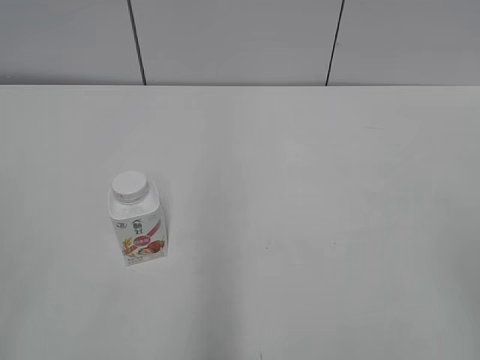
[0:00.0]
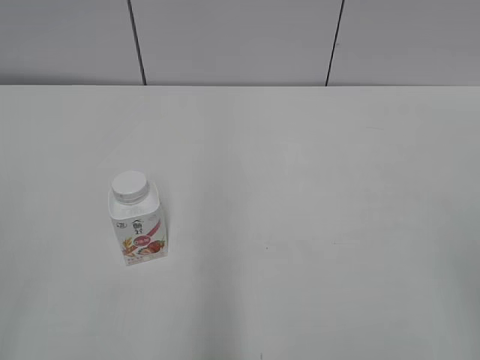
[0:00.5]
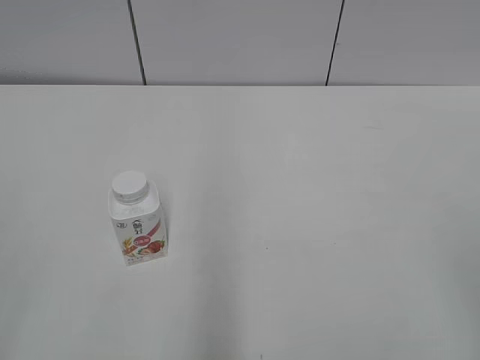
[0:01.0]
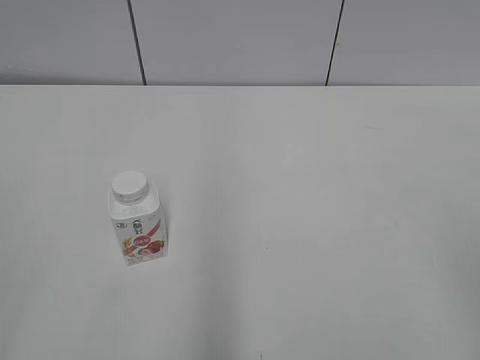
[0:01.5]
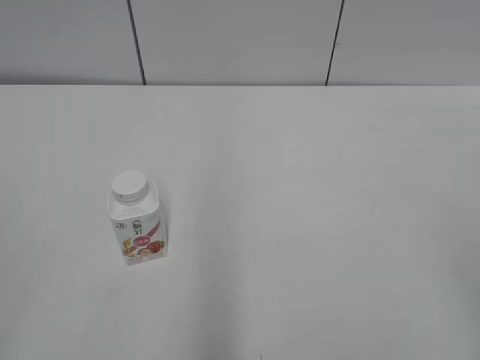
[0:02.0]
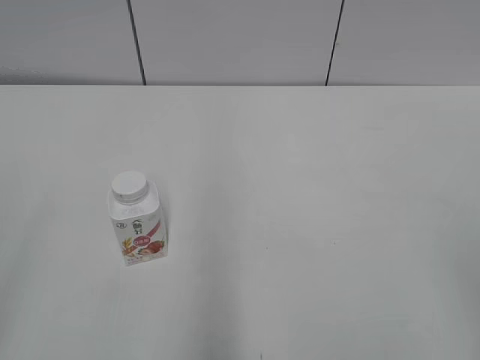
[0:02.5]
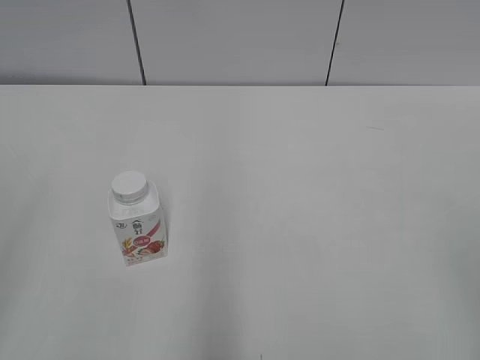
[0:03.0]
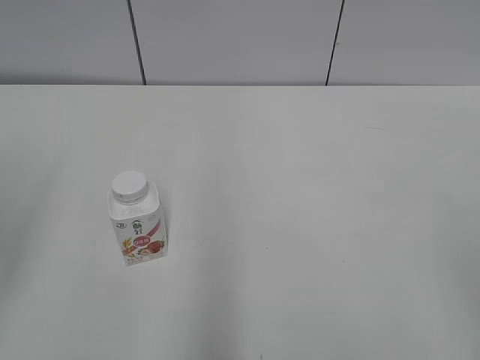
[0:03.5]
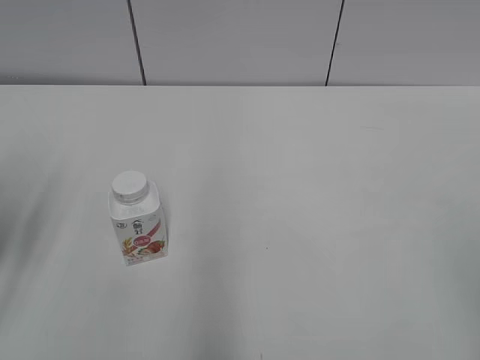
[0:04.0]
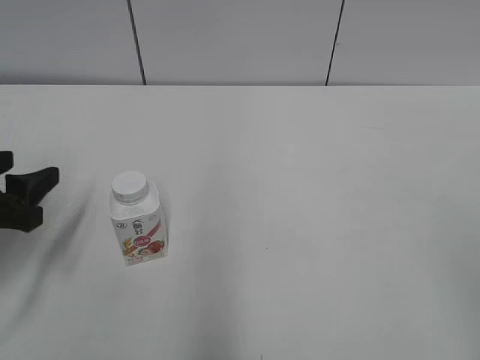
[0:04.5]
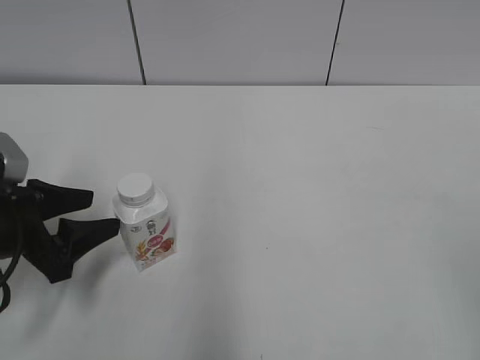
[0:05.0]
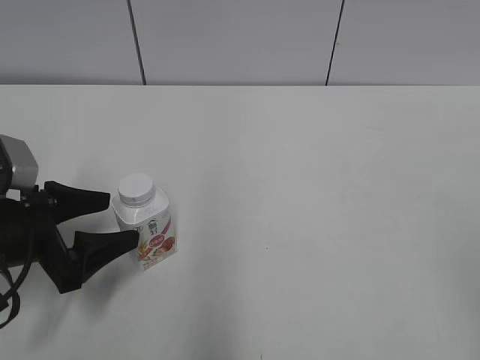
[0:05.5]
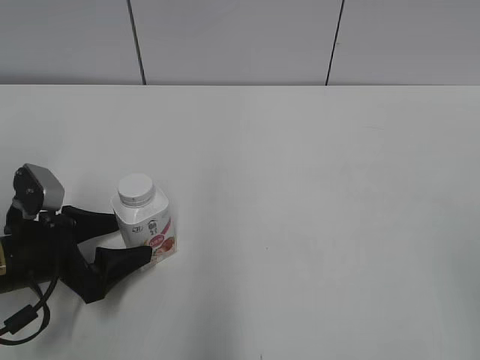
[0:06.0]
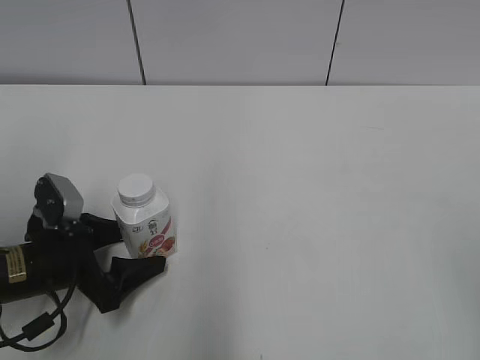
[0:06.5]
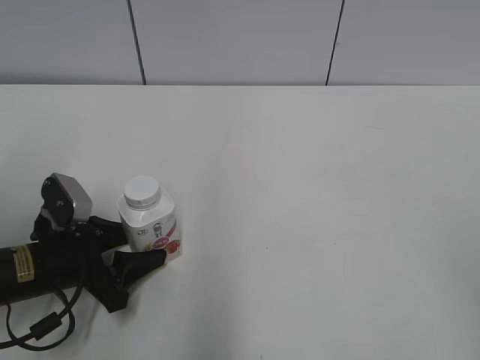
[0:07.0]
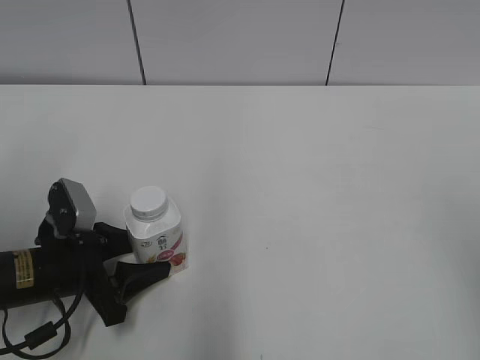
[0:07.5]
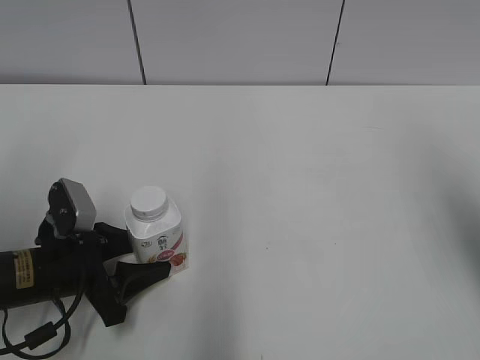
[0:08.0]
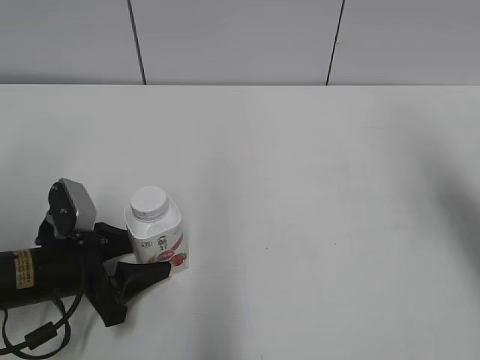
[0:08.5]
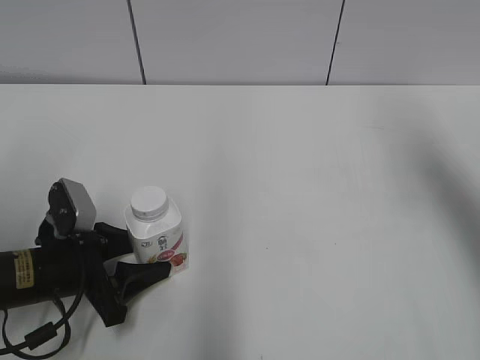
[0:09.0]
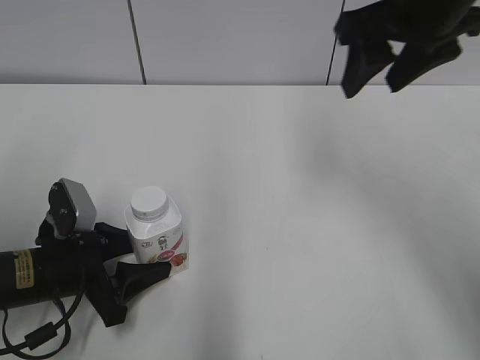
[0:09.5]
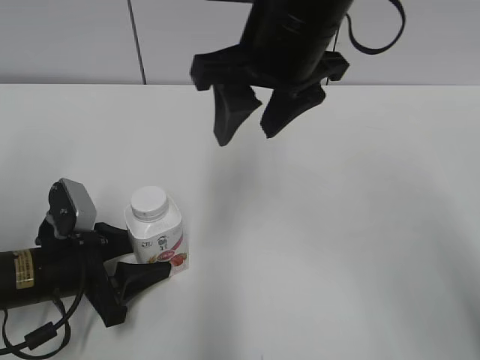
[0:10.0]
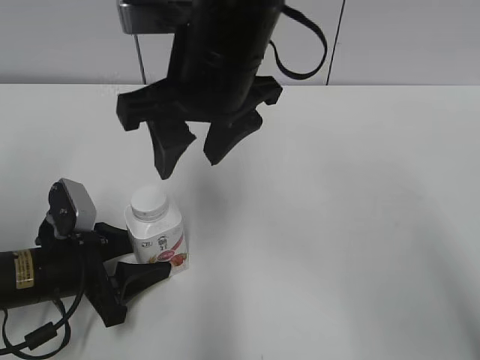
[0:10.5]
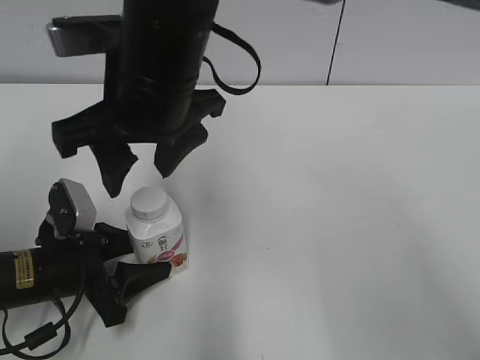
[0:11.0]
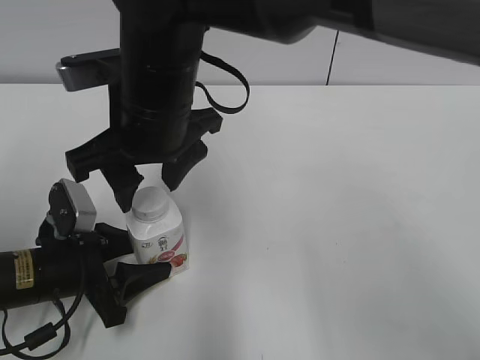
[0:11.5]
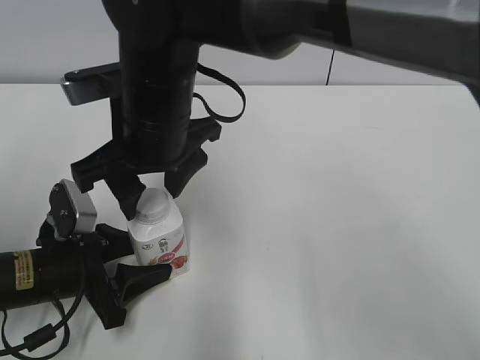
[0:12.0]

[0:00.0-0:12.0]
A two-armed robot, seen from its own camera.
Step, 0:00.0 to 0:07.0: Grab the Yili Changqing with the left hand.
0:02.0 to 0:04.0: The left gripper is displaced forward by approximately 20 cm, and opens up.
0:04.0 to 0:06.0: The left gripper shifts about 15 cm downward and to the right.
0:06.0 to 0:08.0: The left gripper closes its fingers. Meanwhile the right gripper goes some 20 cm forward.
0:08.0 to 0:10.0: The right gripper travels to the left and forward by approximately 30 cm, and closes its fingers.
0:10.0 to 0:12.0: The right gripper goes roughly 15 cm to the left and downward.

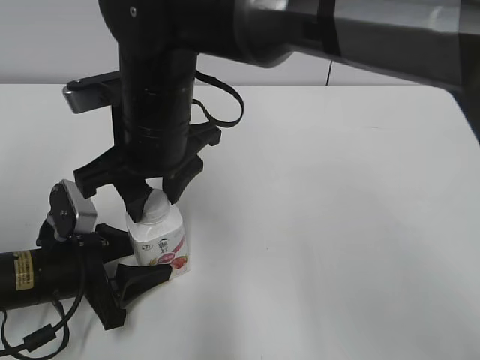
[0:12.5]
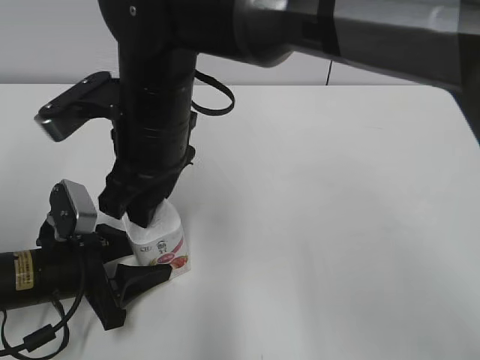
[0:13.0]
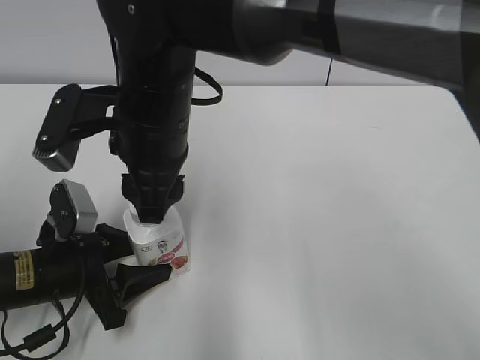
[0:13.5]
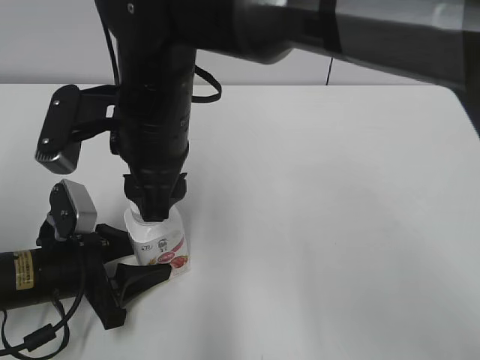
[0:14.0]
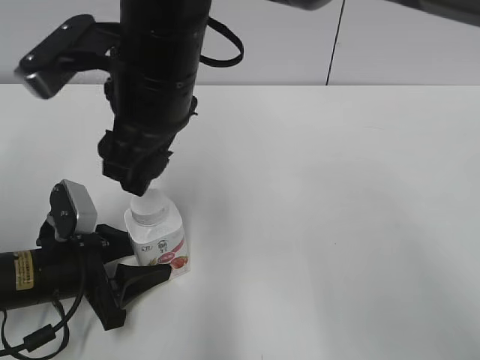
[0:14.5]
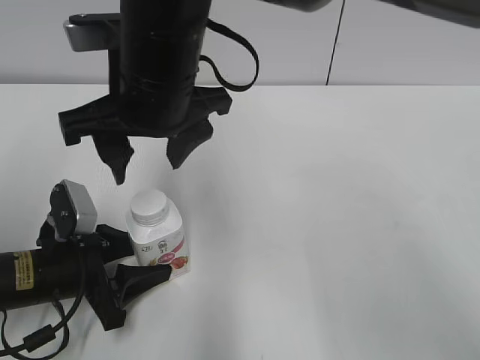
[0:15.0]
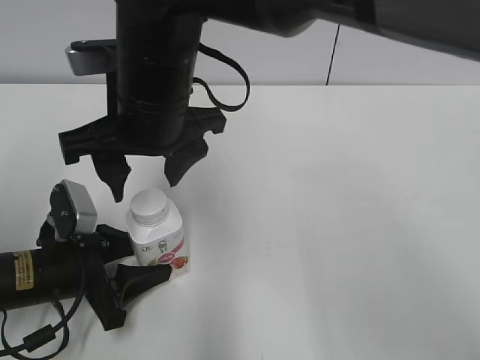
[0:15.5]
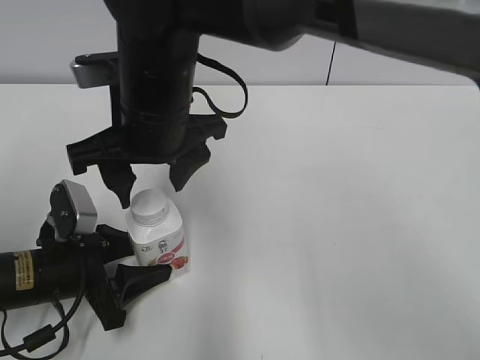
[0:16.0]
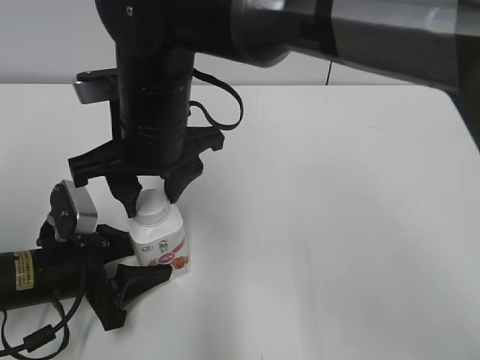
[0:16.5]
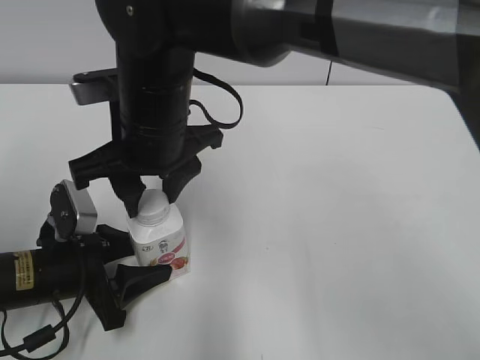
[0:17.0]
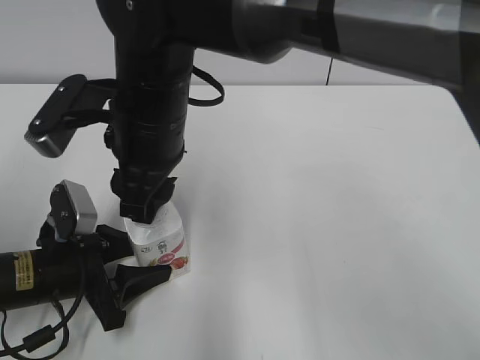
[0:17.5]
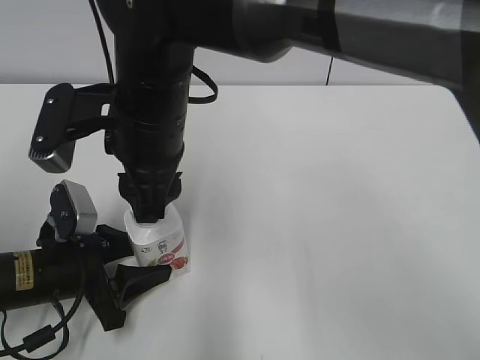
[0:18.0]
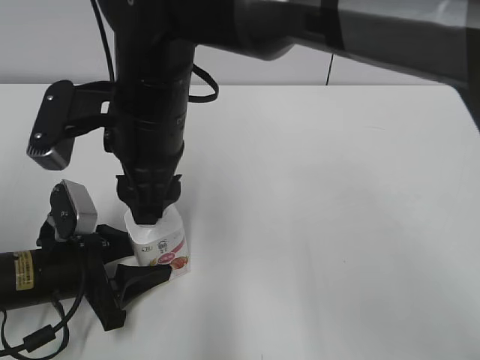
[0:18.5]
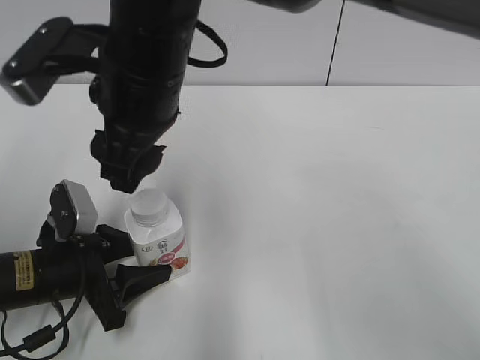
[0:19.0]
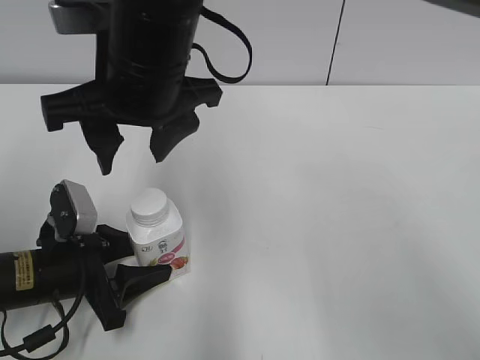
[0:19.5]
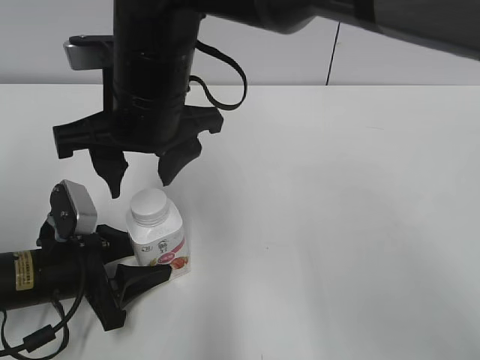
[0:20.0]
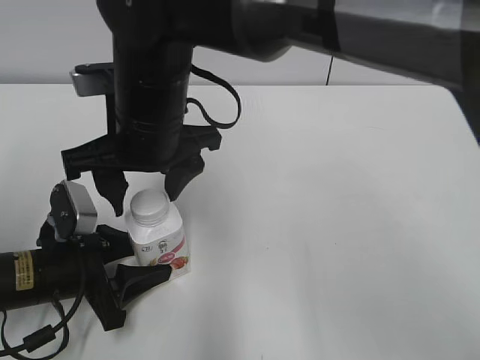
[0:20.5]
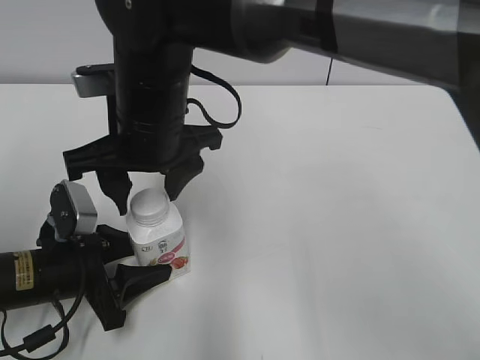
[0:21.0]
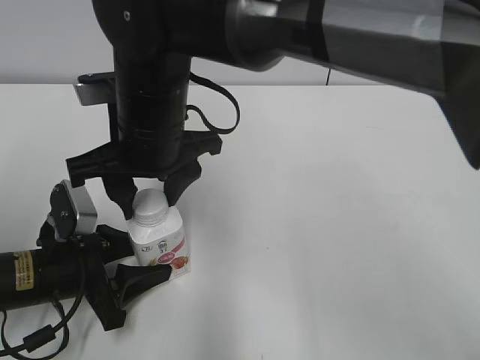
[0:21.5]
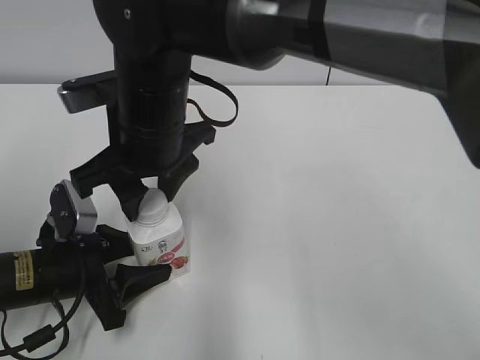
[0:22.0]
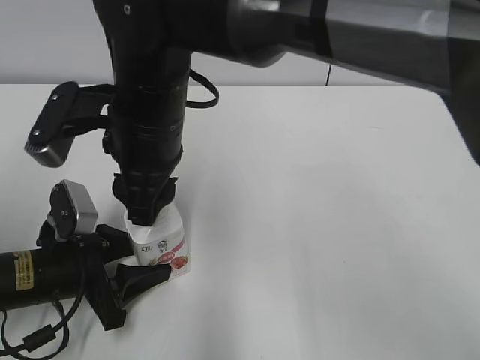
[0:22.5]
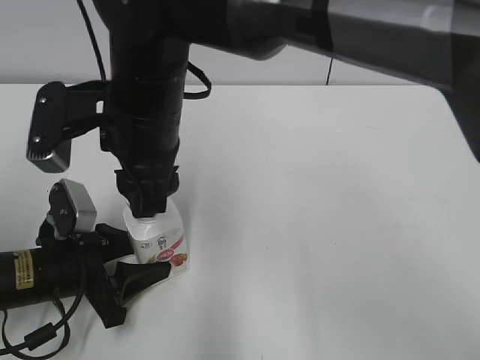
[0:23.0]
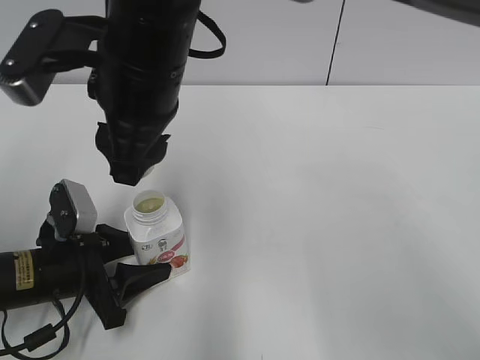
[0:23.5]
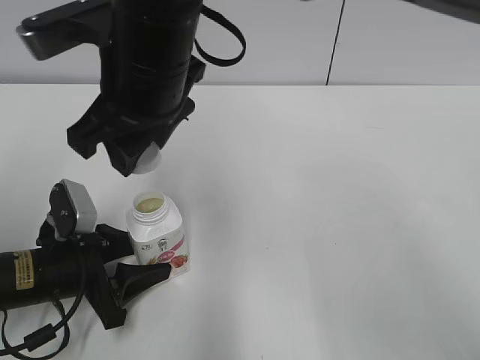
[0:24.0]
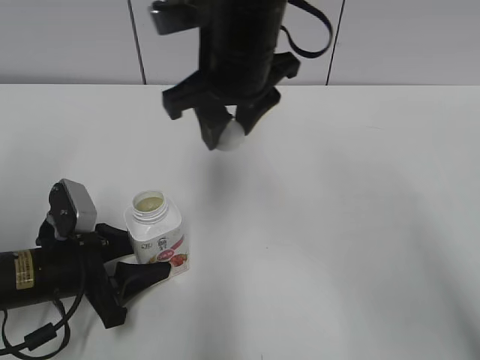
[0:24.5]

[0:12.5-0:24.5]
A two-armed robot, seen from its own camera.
0:12.5 to 0:14.5: The right gripper opens.
0:14.5 to 0:16.5: The right gripper closes its fingers.
0:20.5 to 0:22.5: The right gripper closes.
0:22.5 to 0:24.5: The right gripper goes some 10 cm to the right and upward.

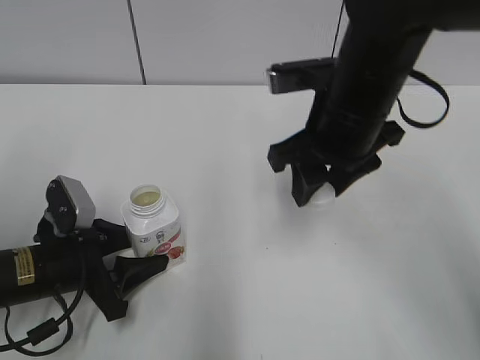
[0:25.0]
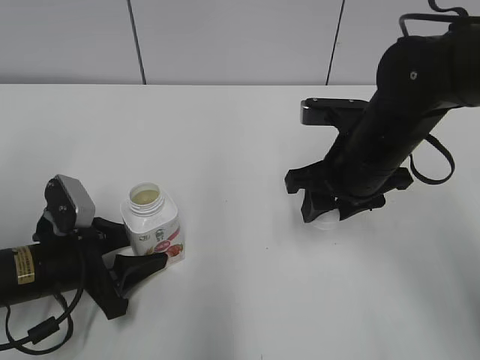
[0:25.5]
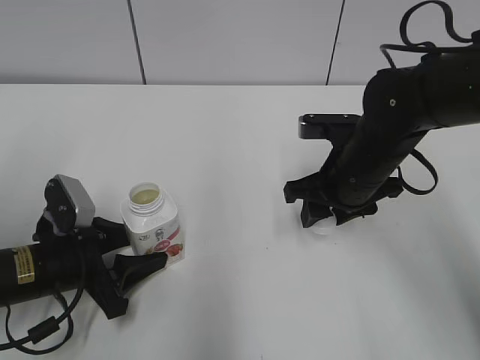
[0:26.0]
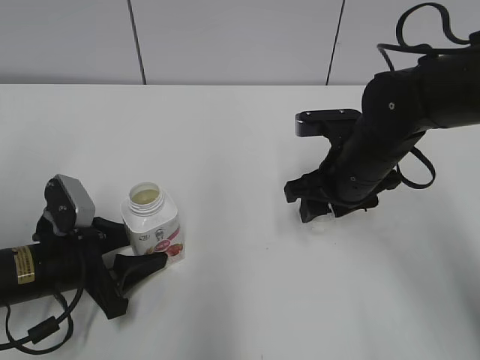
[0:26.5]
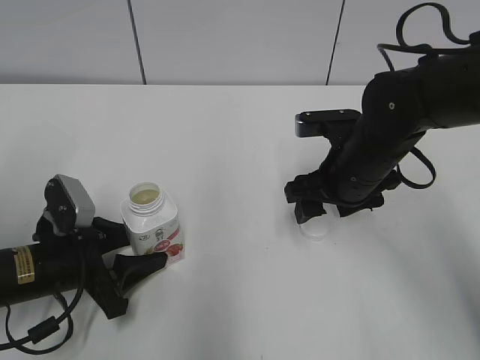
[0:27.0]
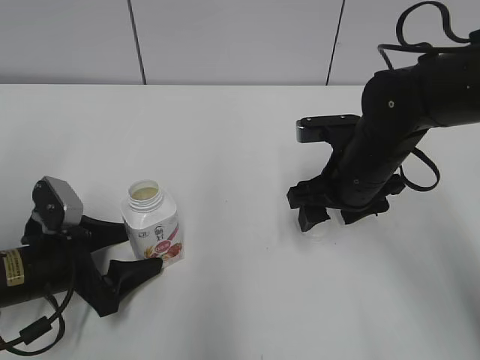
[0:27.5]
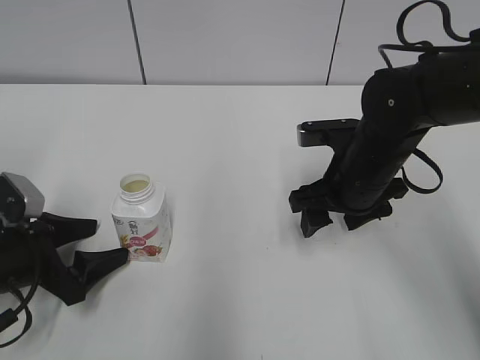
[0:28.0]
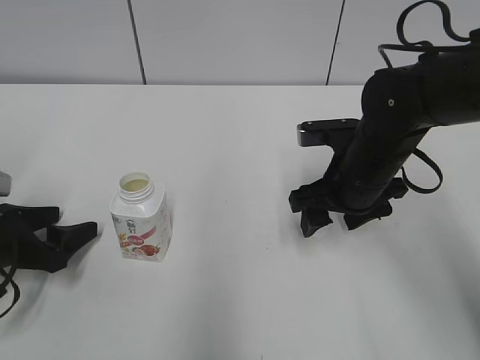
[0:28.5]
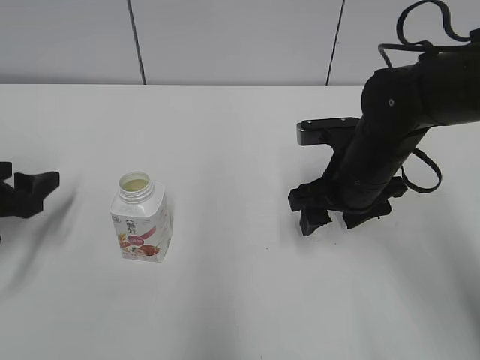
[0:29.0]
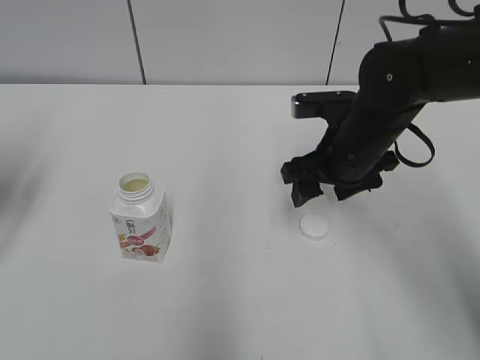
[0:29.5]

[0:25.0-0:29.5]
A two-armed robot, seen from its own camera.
0:25.0 to 0:27.0: The right gripper heads downward, covering roughly 10 cm, and opens up.
0:27.0 to 0:29.5: The left gripper goes about 20 cm upward and to the left, and opens.
